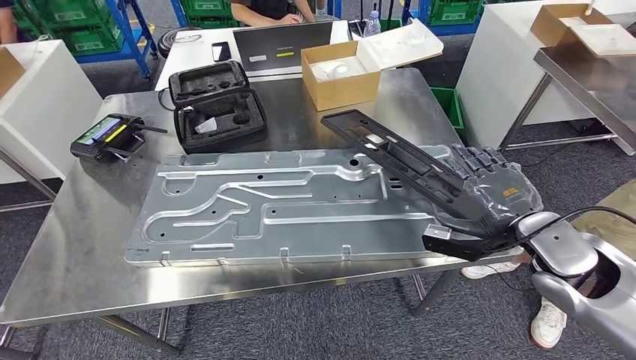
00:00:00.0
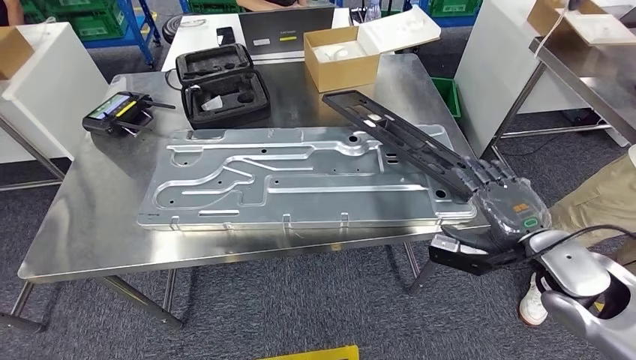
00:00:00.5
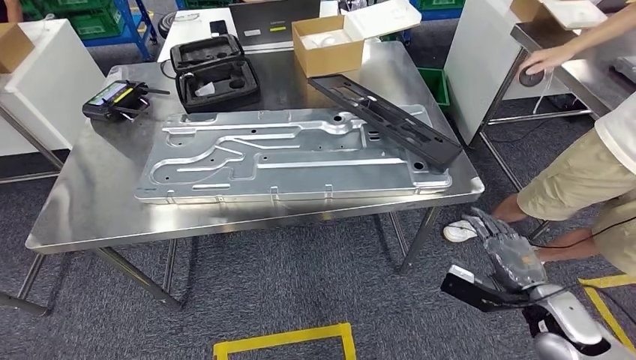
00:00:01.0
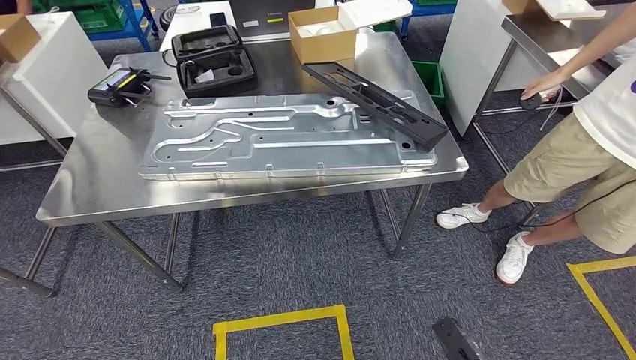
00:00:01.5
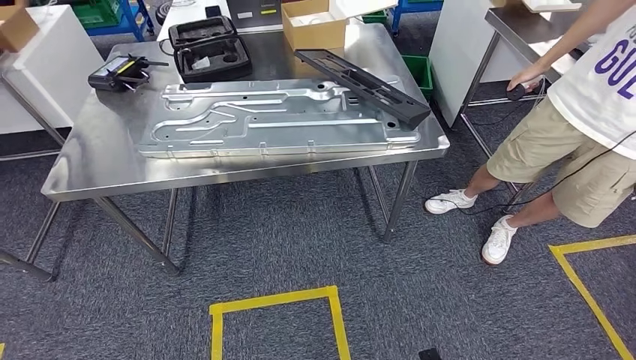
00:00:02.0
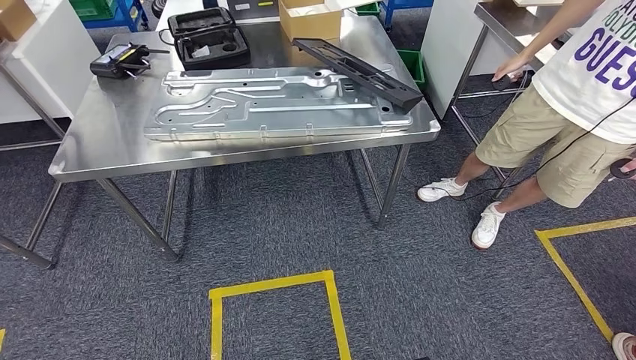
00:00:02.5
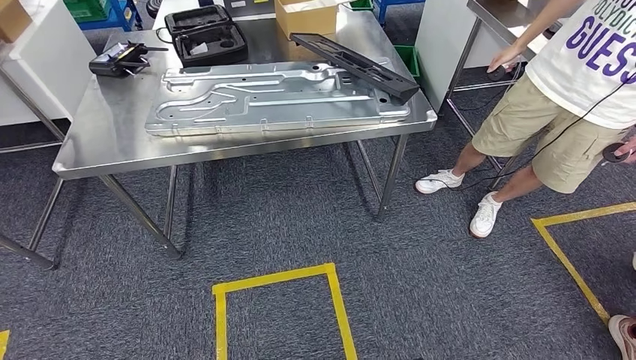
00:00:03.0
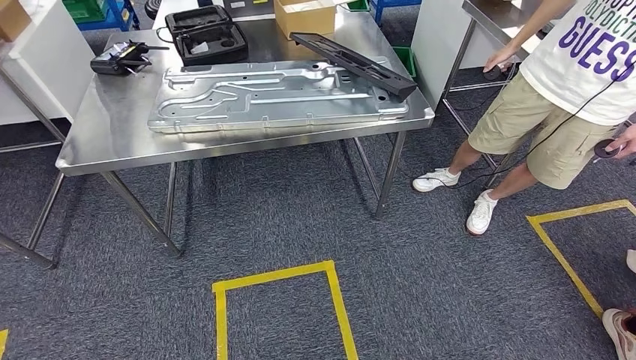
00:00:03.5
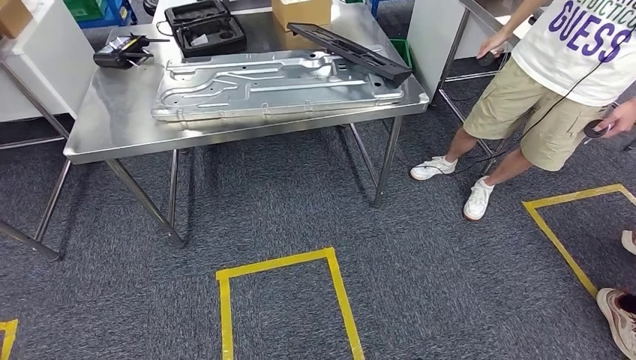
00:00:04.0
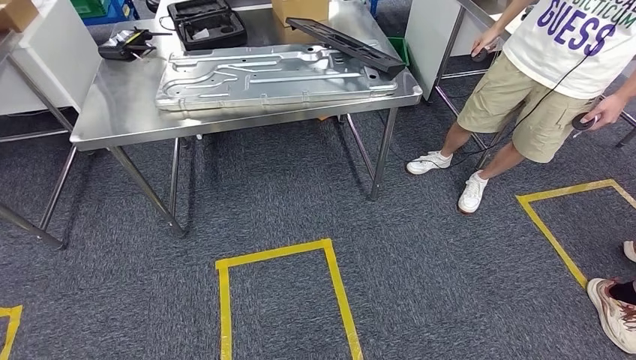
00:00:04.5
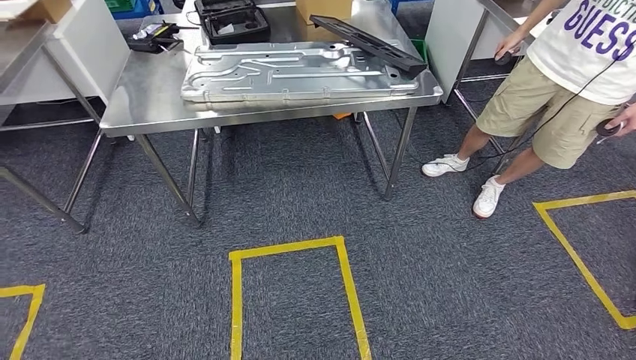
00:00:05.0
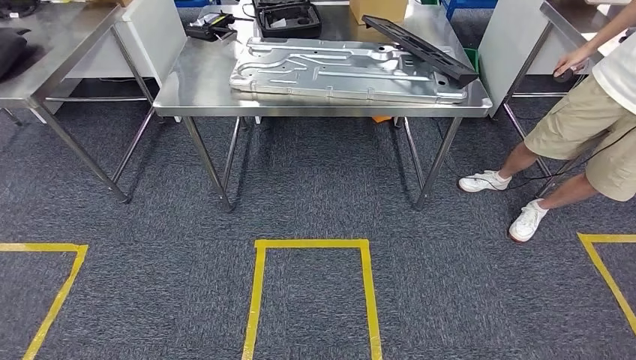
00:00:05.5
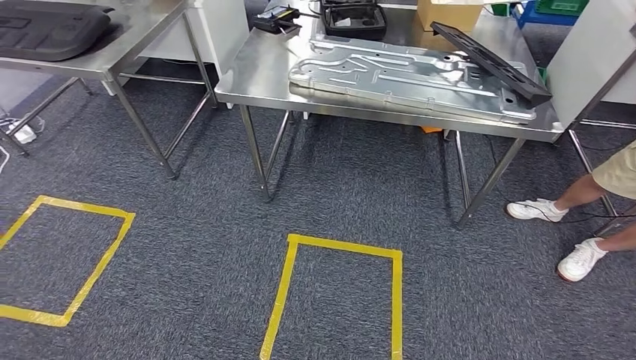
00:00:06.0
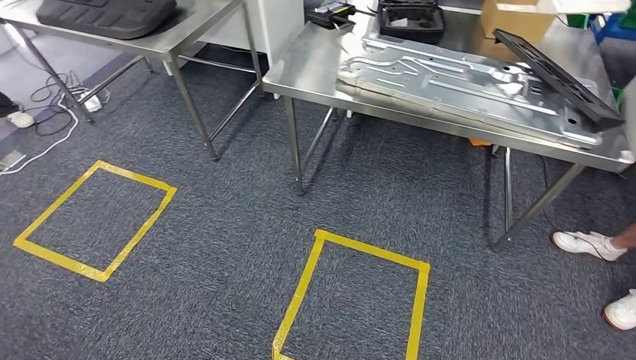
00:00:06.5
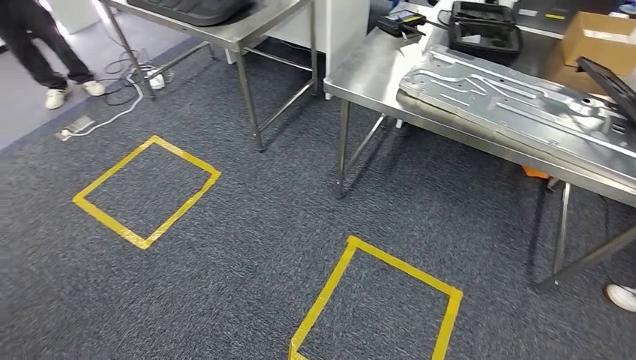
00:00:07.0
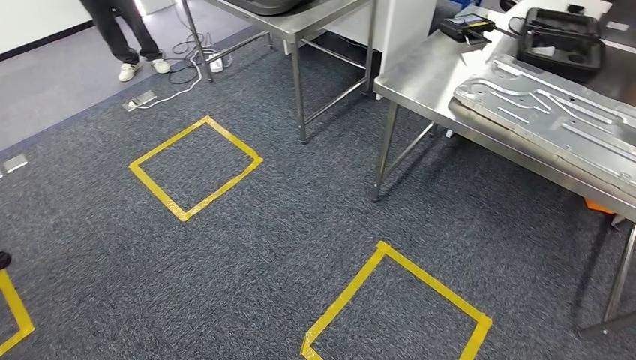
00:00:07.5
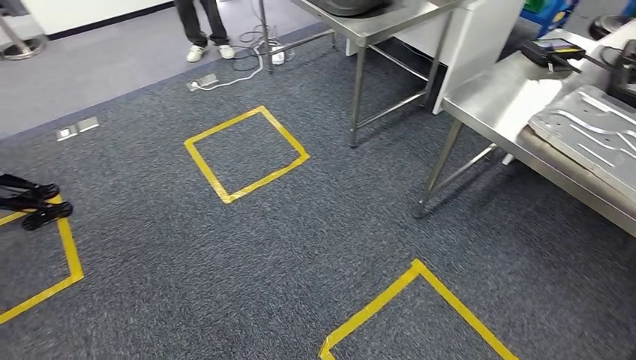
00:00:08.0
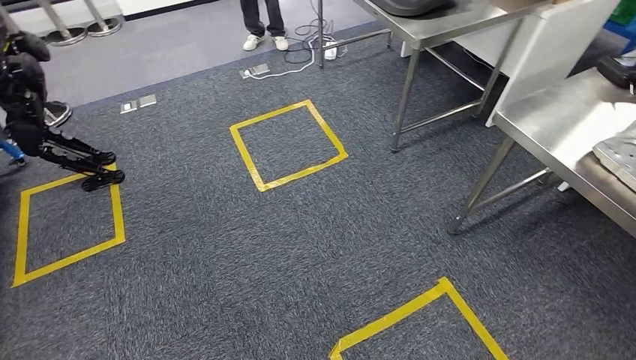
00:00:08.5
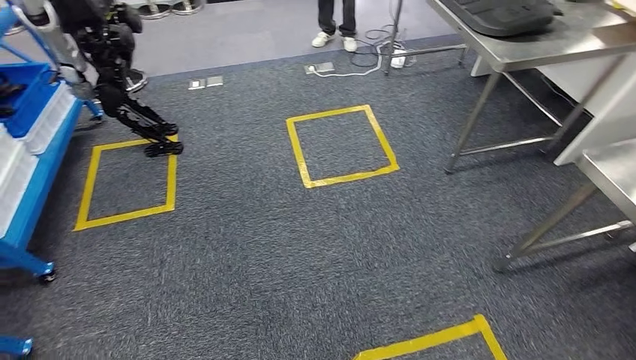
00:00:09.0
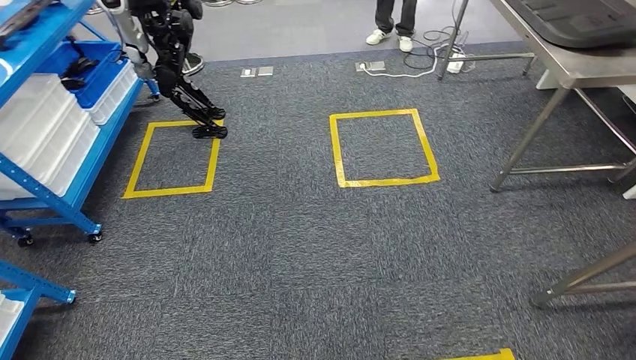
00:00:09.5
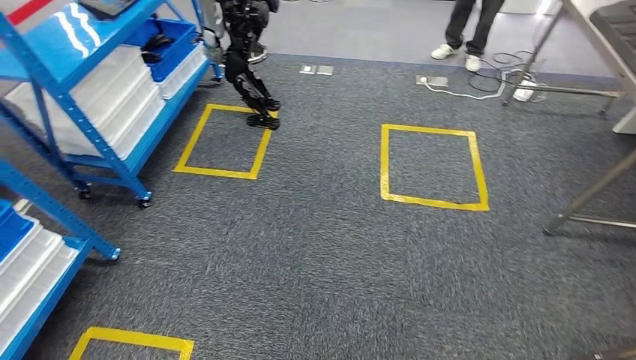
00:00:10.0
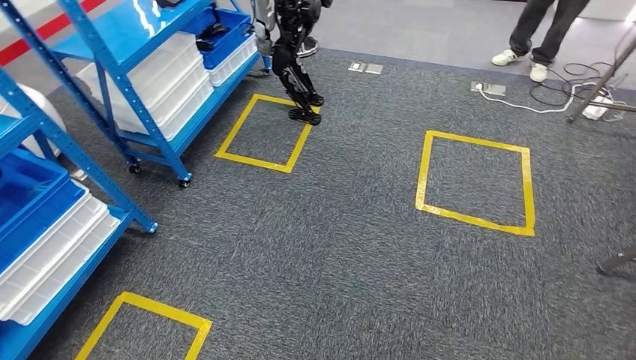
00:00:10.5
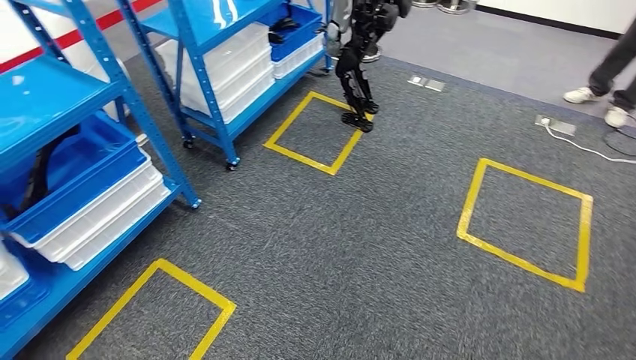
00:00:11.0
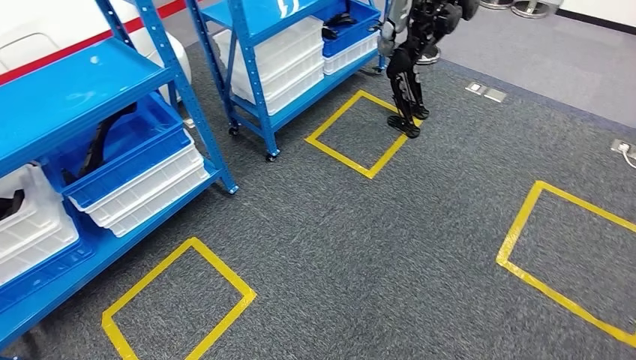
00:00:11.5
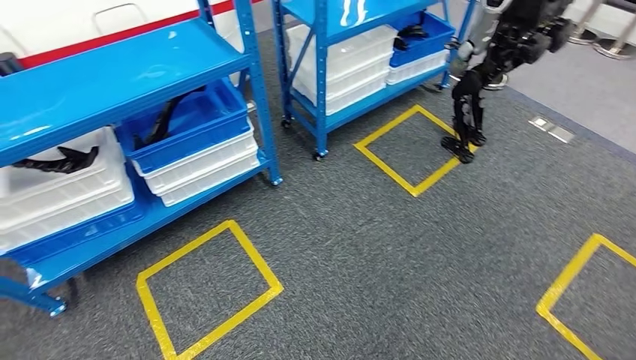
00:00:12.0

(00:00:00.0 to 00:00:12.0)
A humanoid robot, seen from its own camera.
Step, 00:00:00.0 - 00:00:02.0: Insert the large material into the corresponding slot on the workbench.

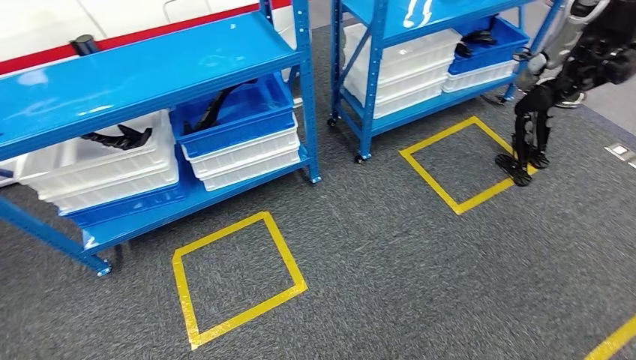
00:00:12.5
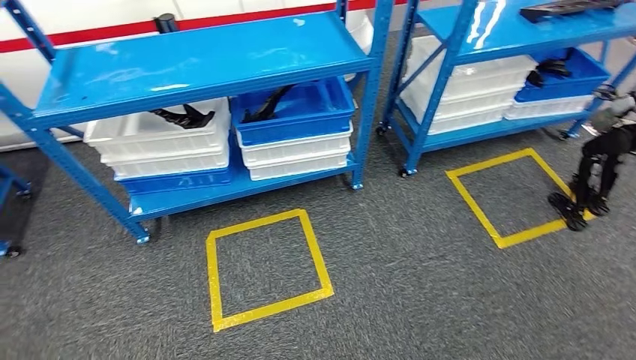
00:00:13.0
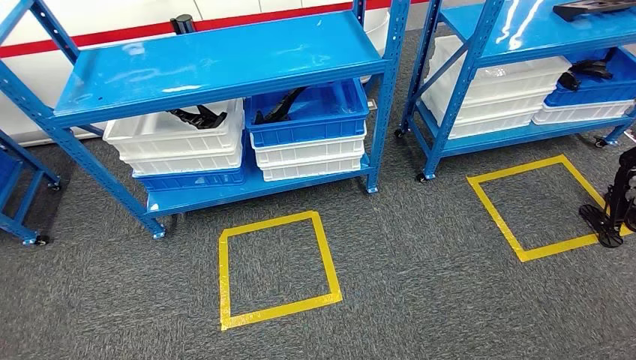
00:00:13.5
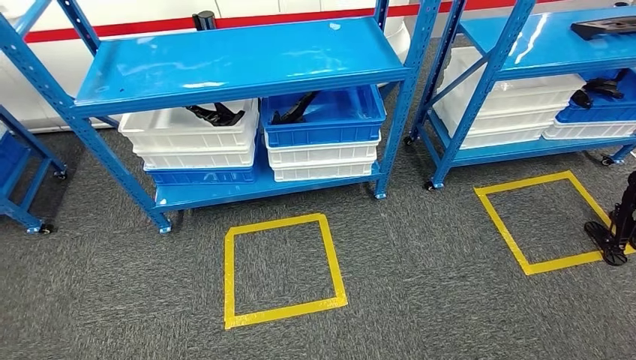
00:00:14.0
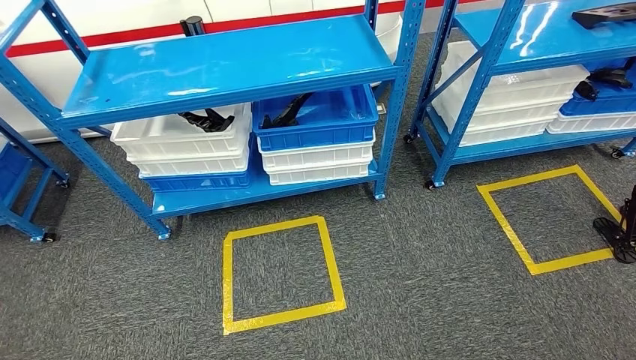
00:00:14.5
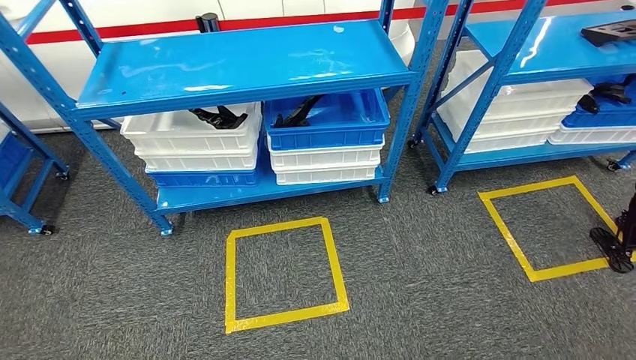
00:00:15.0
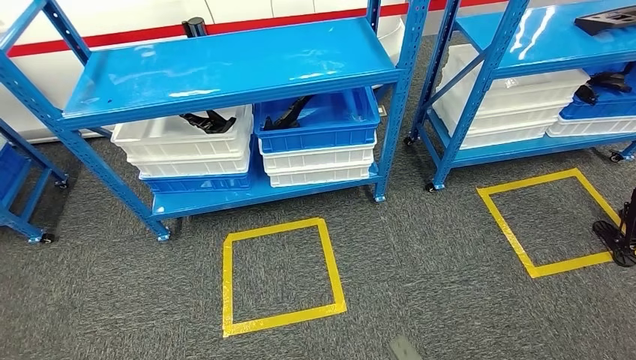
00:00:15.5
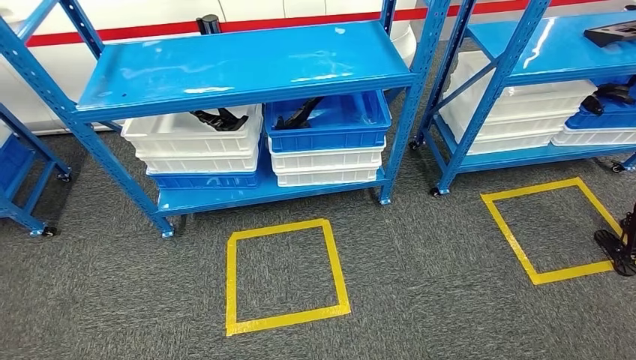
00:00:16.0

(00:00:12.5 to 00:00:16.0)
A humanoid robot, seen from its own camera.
Step, 00:00:12.5 - 00:00:16.0: Move to the initial position of the shelf.
